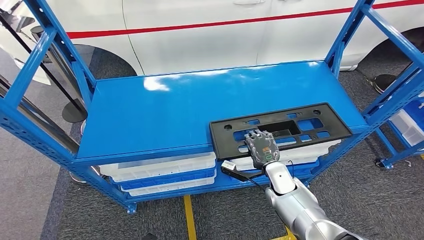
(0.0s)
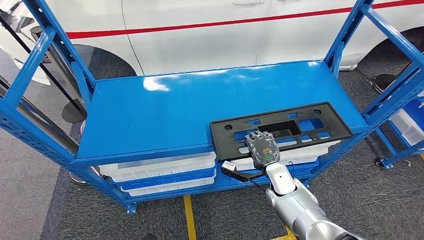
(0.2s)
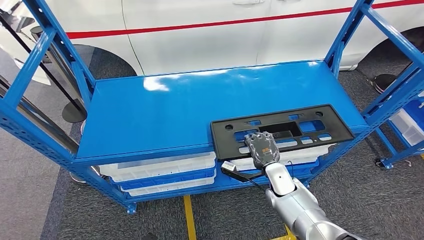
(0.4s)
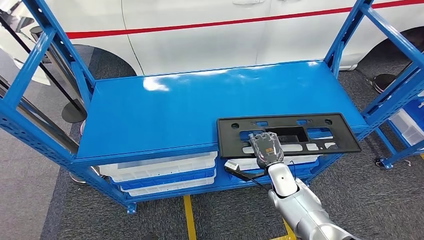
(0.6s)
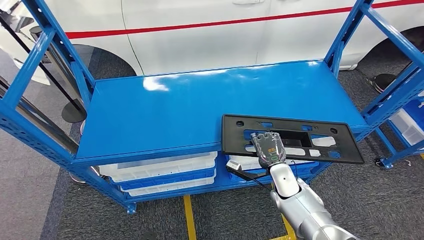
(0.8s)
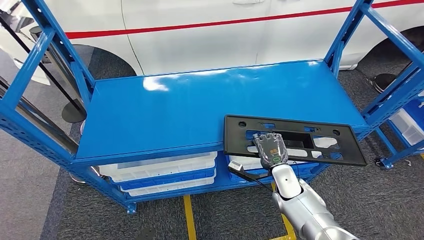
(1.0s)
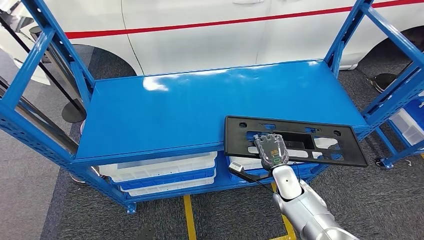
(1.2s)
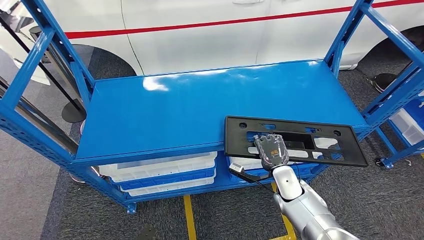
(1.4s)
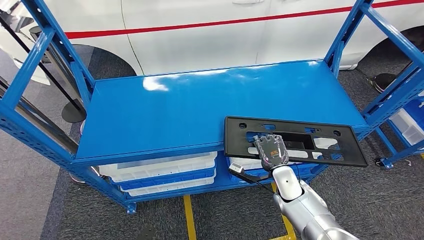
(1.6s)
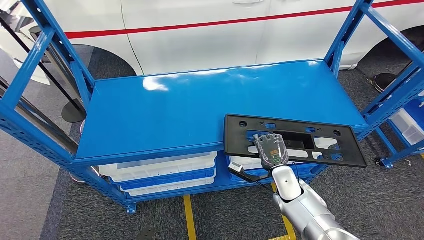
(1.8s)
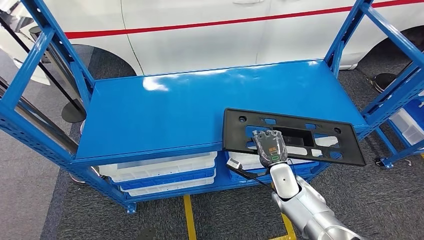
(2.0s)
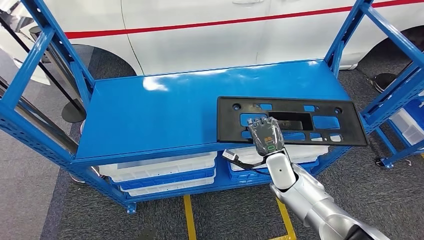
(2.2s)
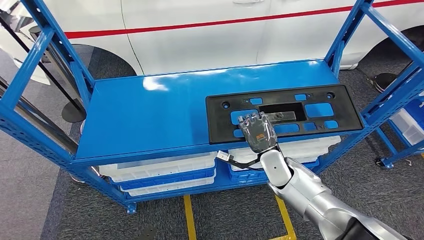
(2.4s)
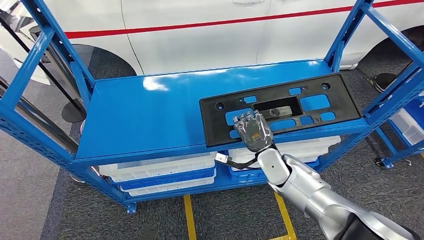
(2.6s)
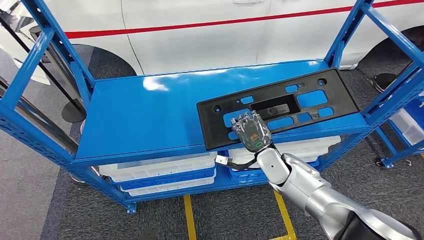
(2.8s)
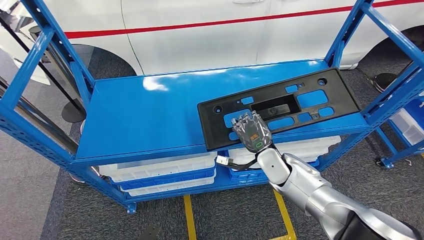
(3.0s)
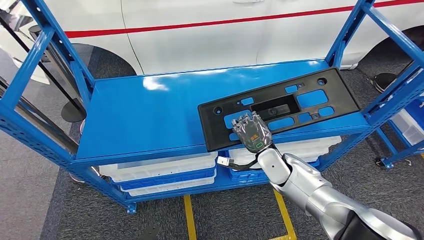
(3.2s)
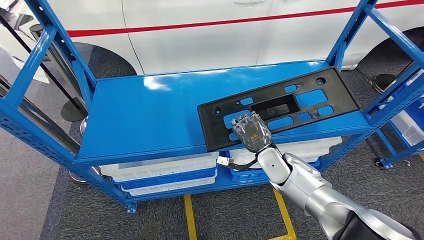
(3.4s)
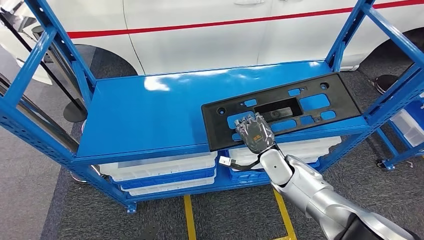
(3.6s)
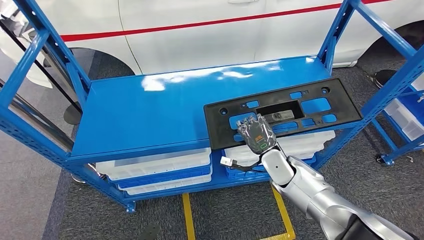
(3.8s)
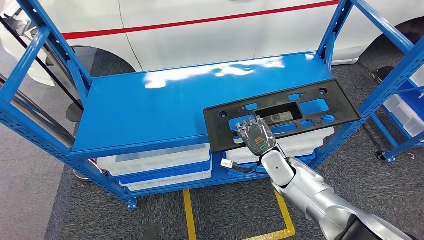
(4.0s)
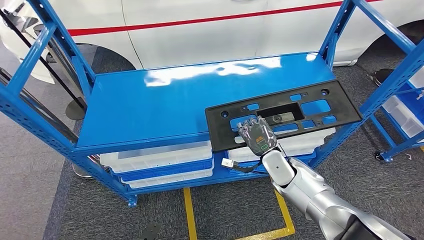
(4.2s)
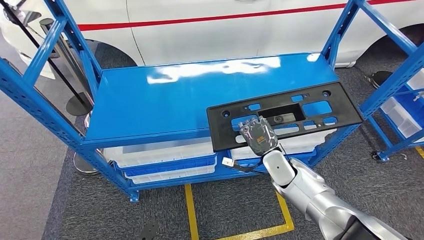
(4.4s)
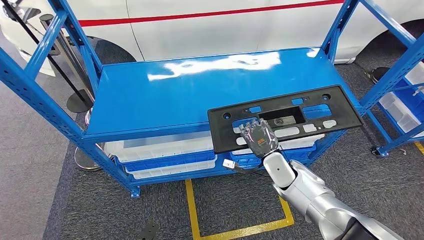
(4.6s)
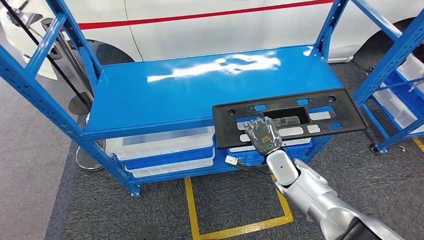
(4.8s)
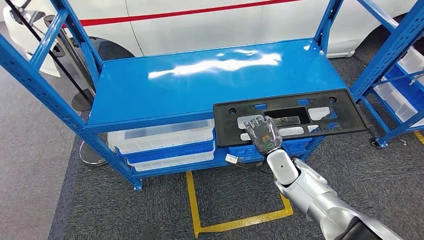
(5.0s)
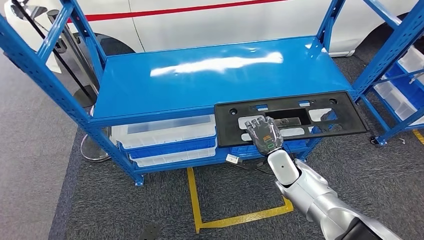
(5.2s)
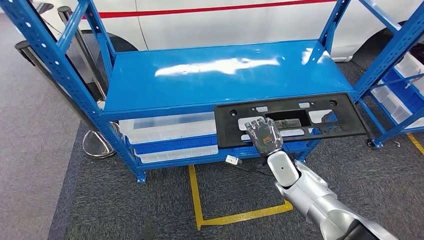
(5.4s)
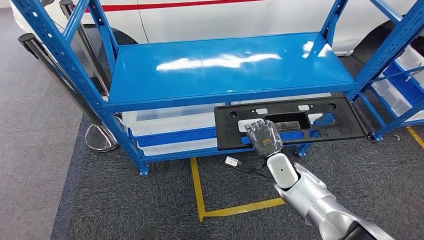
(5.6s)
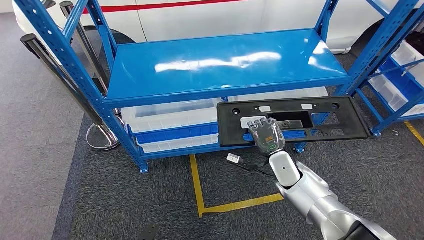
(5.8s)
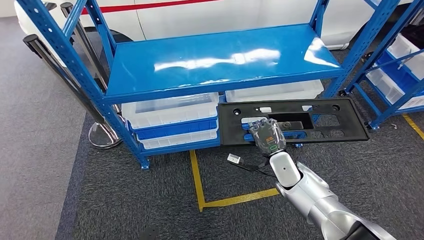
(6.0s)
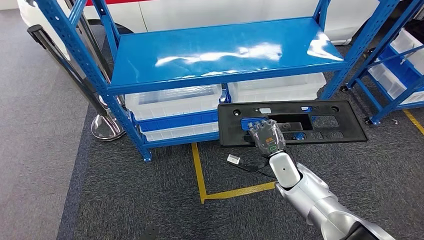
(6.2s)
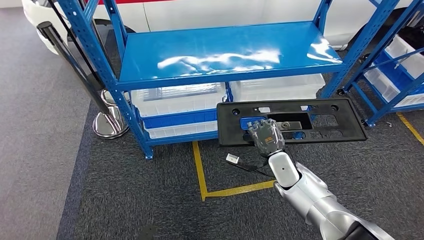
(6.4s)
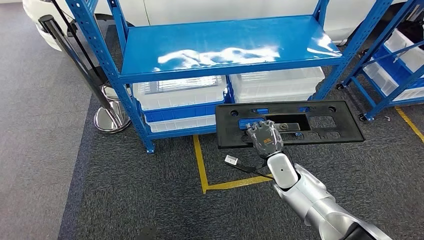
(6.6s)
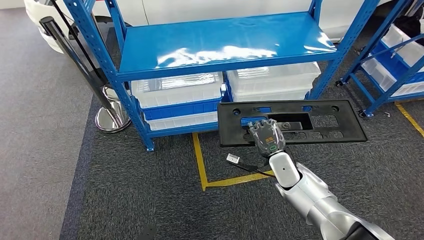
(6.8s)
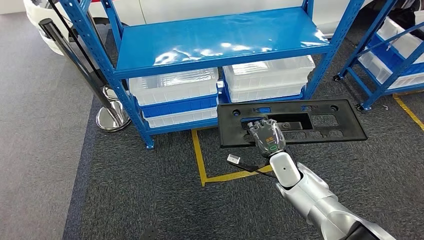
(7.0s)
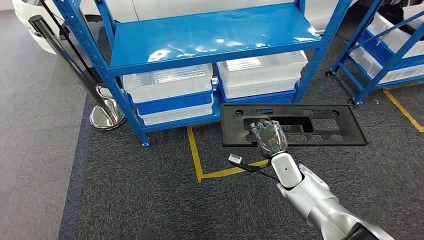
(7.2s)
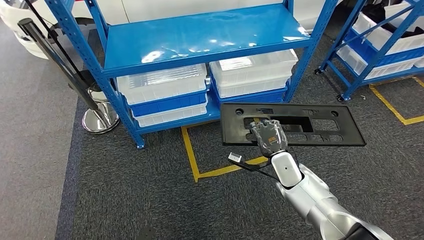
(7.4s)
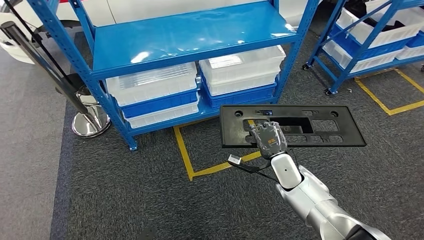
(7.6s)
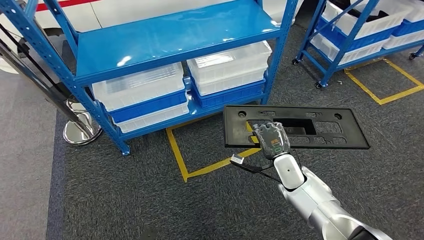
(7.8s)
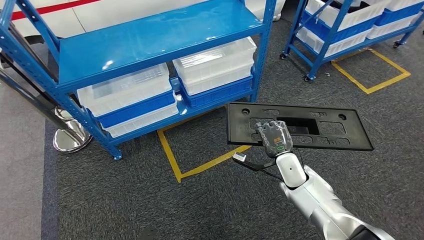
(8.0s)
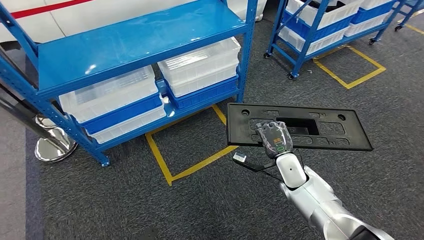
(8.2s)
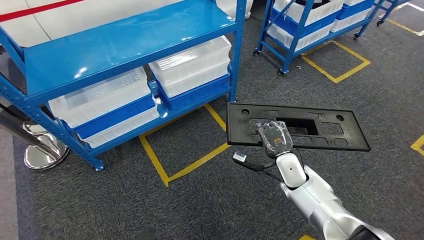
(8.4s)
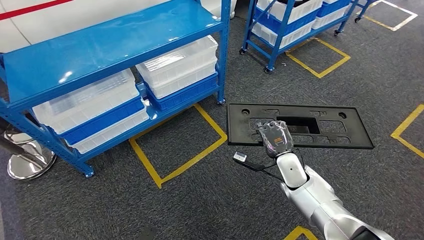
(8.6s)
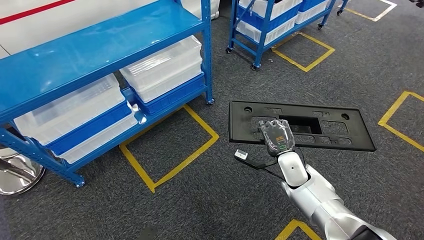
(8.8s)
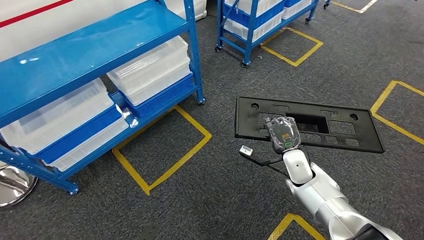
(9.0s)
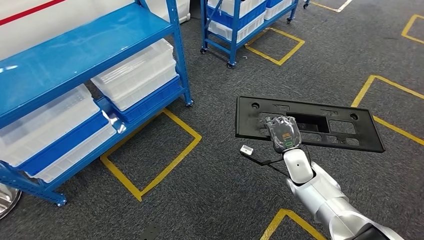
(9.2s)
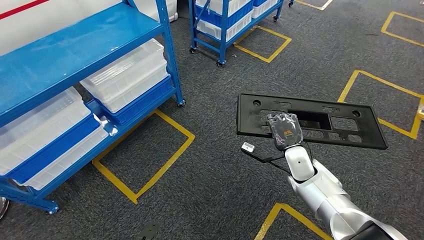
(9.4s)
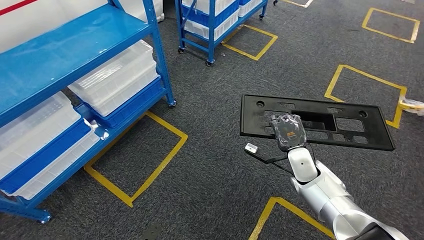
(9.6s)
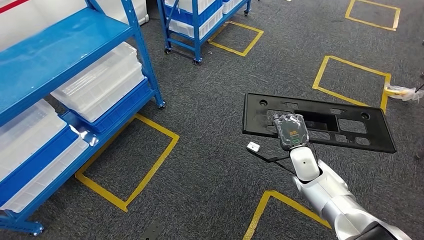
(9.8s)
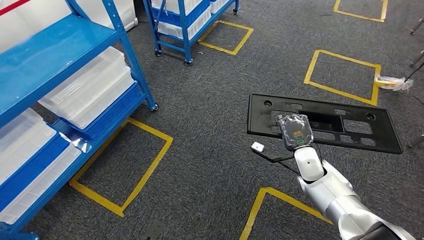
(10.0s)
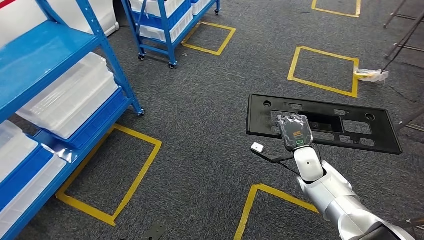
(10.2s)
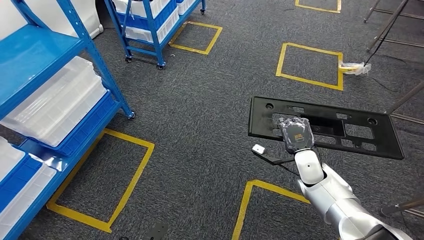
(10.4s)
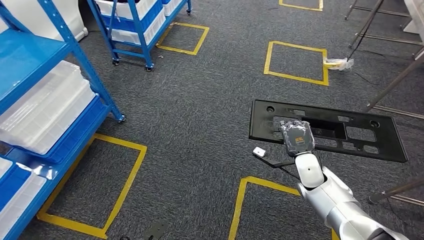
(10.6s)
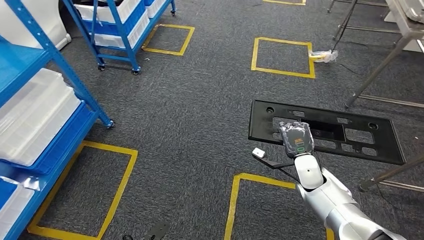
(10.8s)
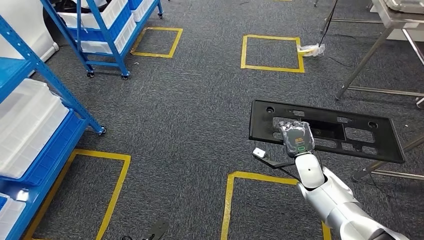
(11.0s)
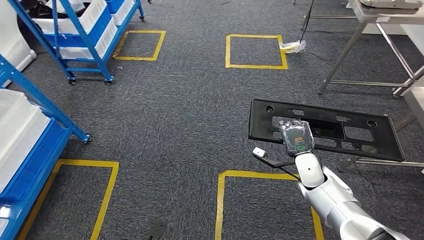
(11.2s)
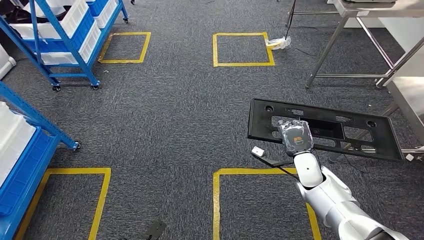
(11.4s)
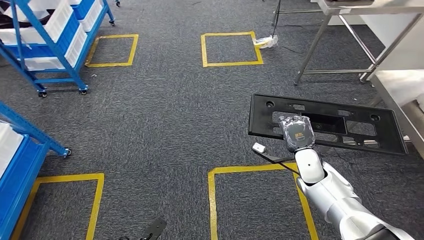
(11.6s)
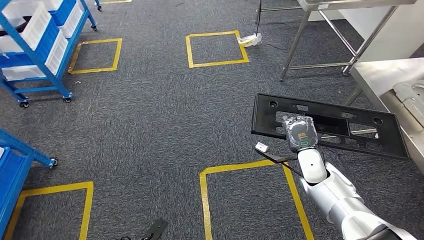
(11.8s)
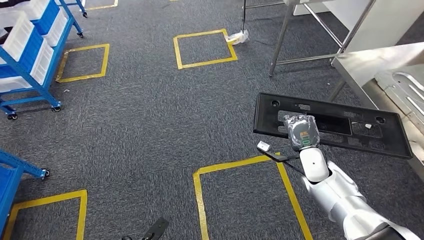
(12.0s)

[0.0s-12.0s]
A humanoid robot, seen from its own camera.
Step, 0.0s to 5.2s: Pick up the large material from the shelf.
0.0s to 1.6s: There are only small adjustments of the hands.
1.6s to 3.0s: The right hand goes roughly 5 cm upward.

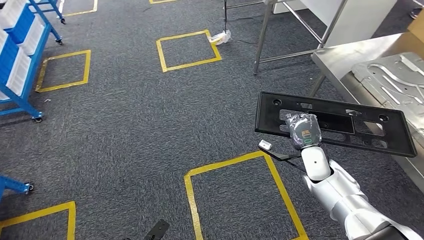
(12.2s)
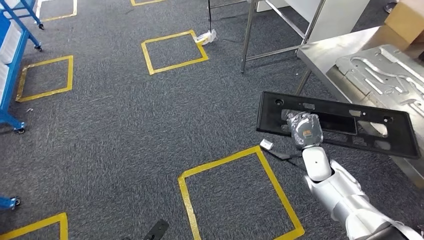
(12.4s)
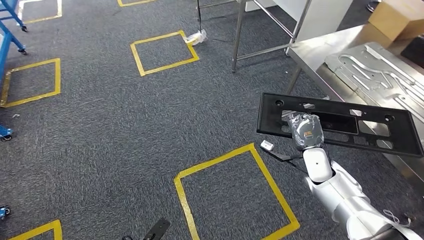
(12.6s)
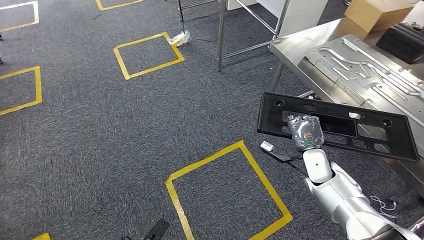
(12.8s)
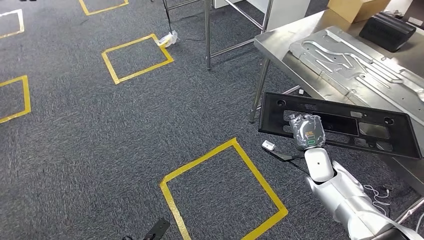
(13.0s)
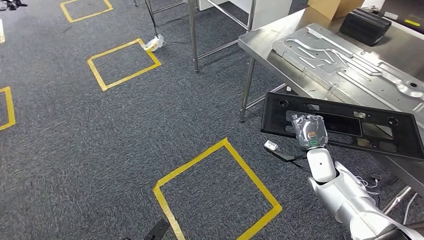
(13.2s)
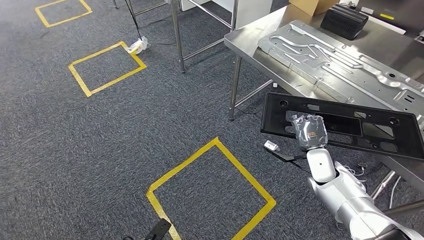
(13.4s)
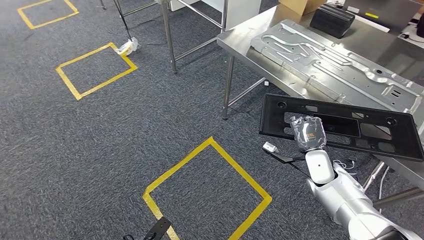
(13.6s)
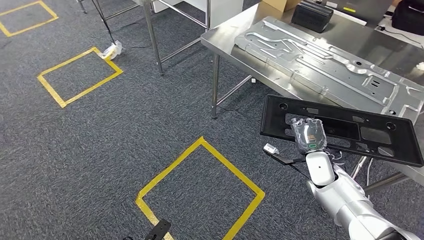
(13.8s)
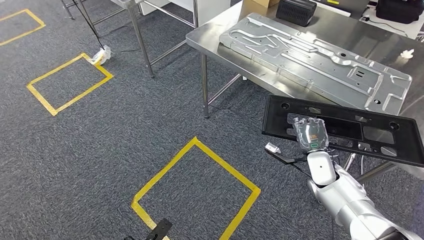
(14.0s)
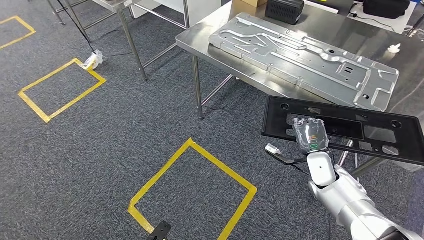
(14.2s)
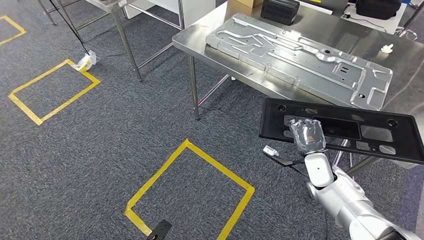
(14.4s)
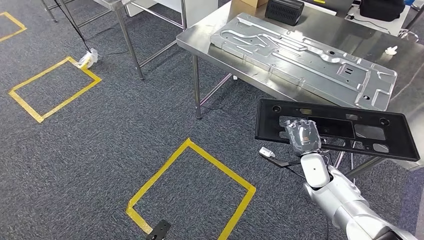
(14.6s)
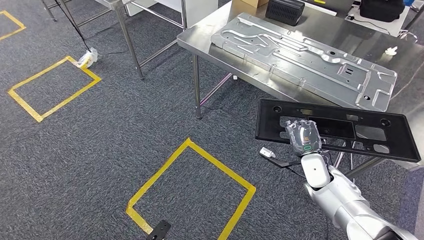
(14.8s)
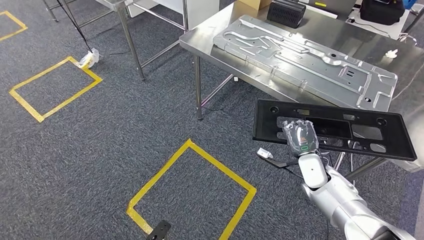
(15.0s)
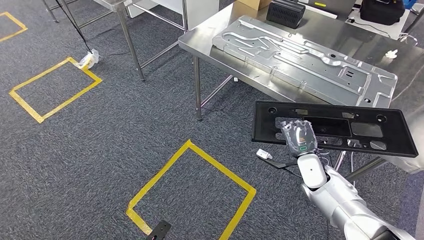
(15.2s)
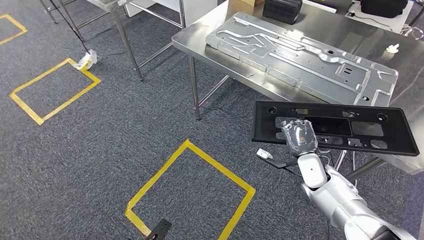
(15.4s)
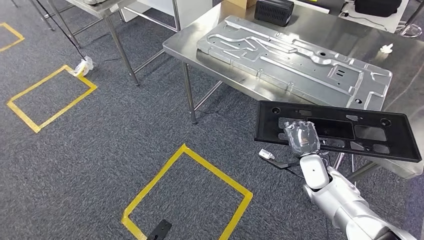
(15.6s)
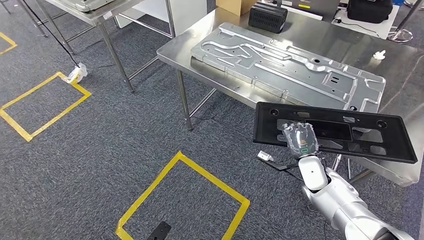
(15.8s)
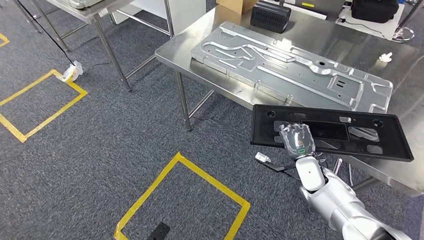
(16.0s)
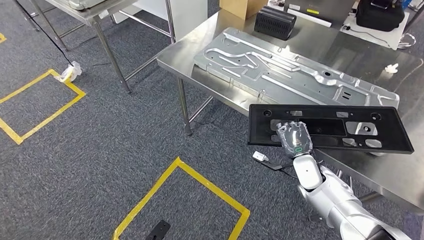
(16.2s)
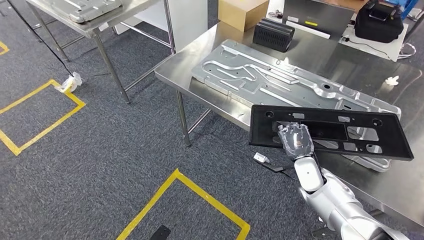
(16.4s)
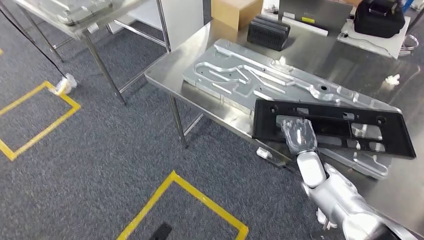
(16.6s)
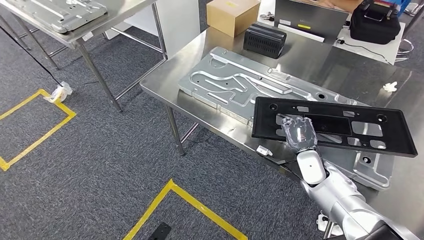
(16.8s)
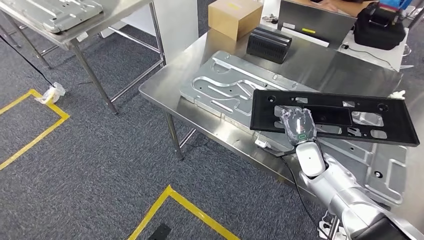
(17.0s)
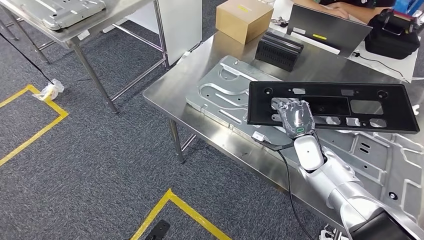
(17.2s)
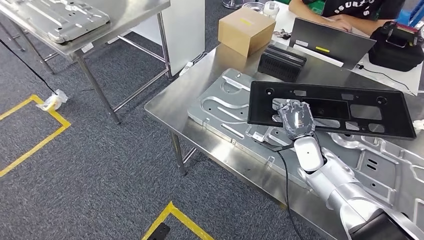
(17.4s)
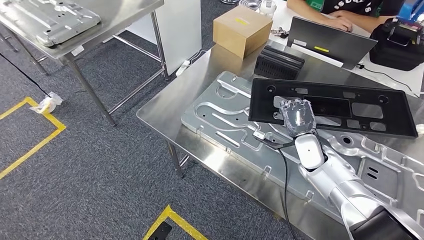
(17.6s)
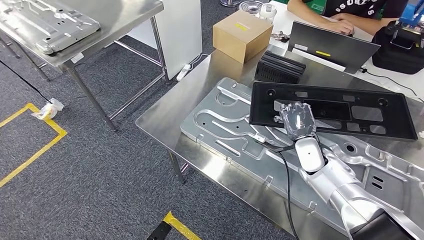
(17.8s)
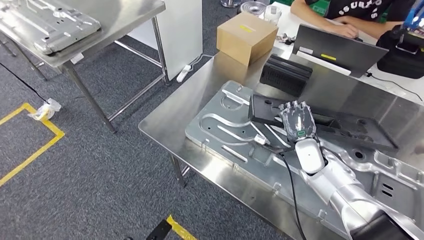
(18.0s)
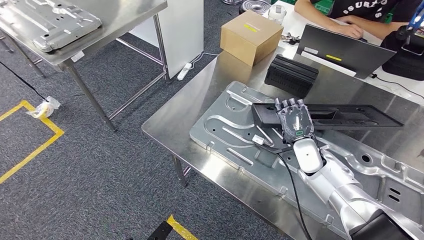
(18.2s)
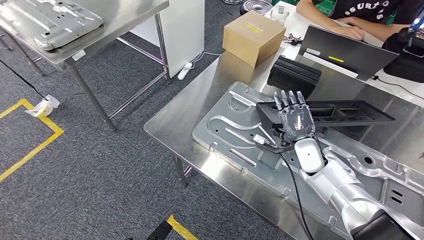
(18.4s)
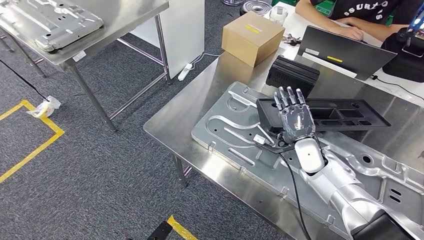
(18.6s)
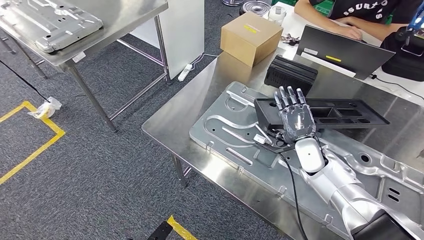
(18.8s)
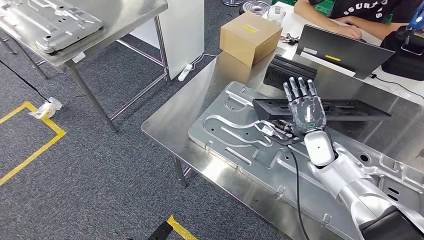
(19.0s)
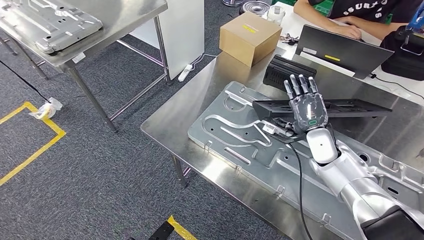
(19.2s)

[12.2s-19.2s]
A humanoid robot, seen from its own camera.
Step, 12.2s to 17.2s: Move the large material to the workbench.
